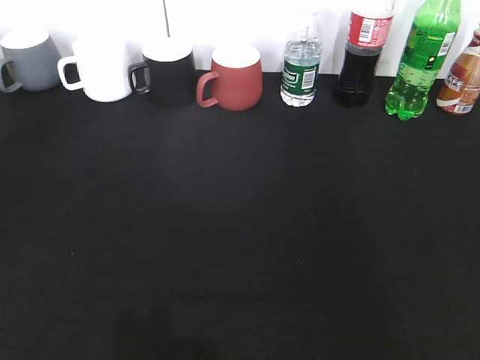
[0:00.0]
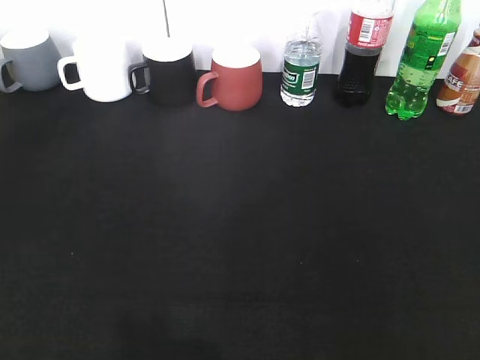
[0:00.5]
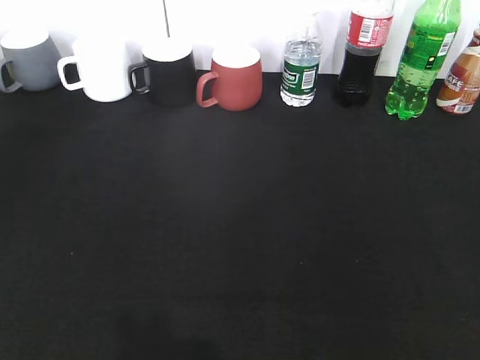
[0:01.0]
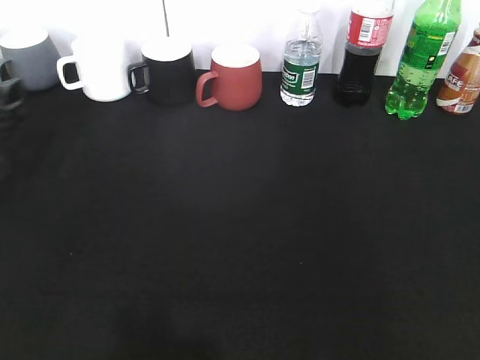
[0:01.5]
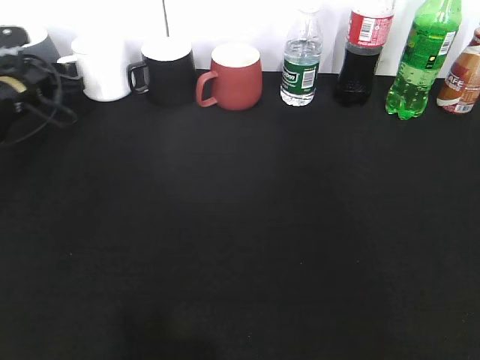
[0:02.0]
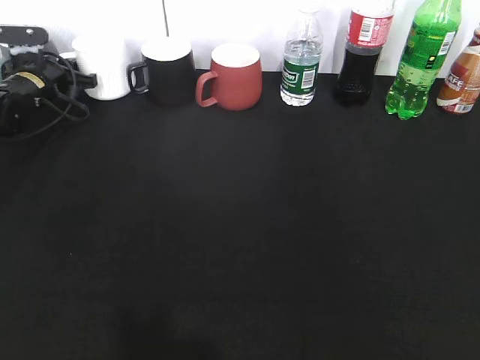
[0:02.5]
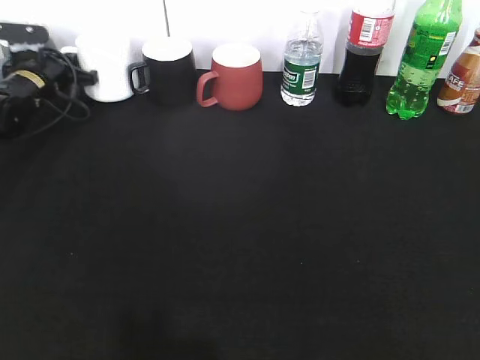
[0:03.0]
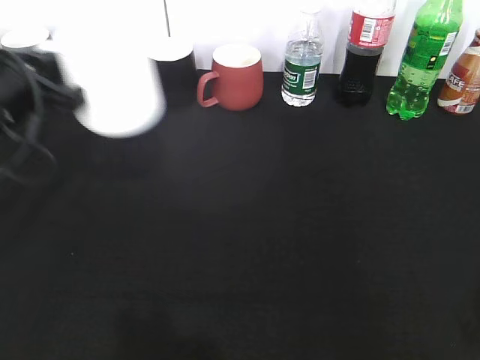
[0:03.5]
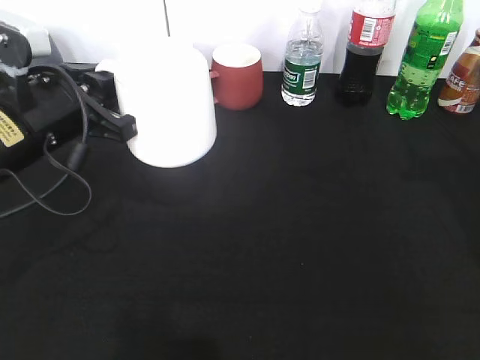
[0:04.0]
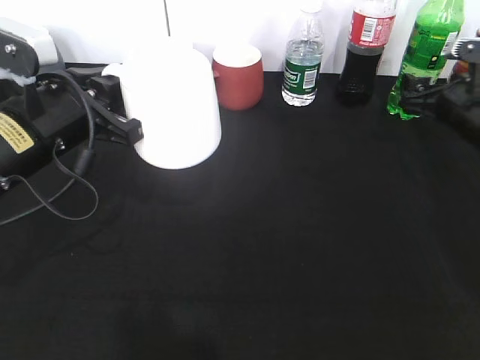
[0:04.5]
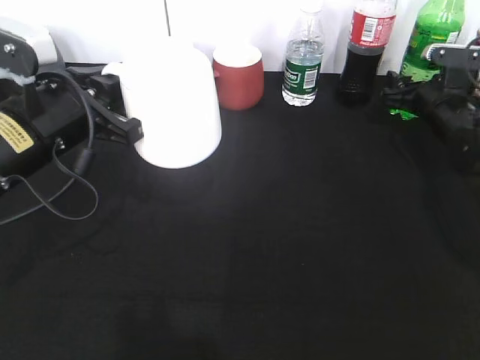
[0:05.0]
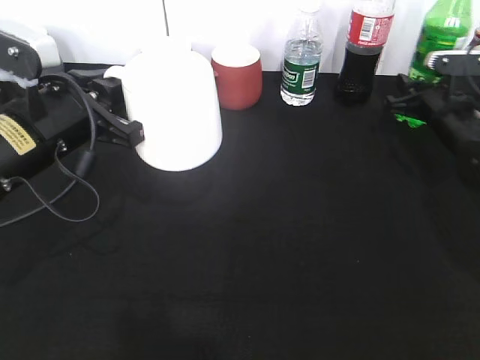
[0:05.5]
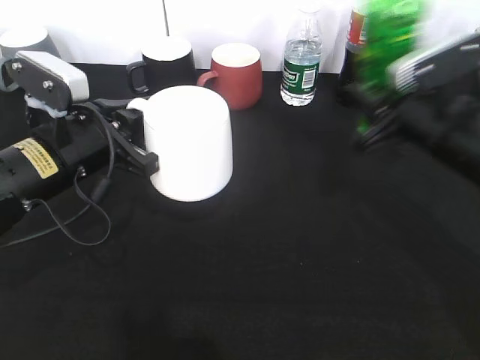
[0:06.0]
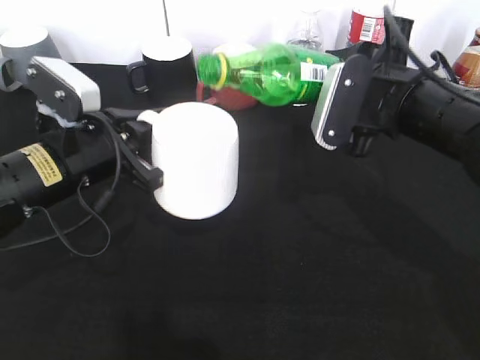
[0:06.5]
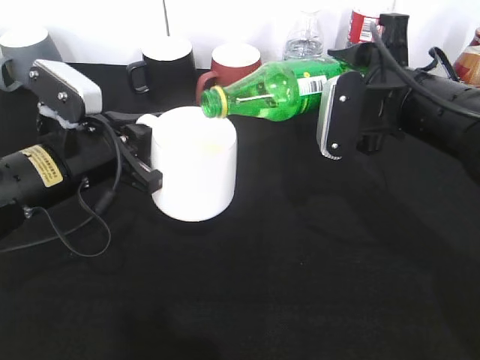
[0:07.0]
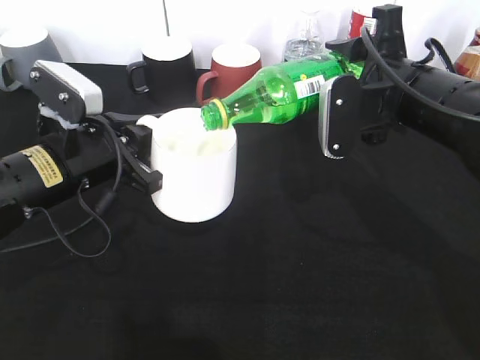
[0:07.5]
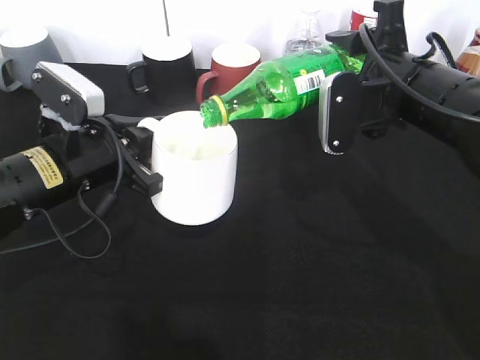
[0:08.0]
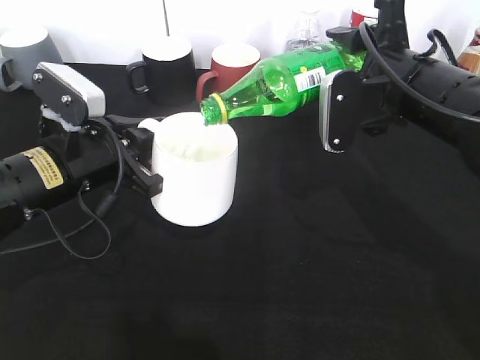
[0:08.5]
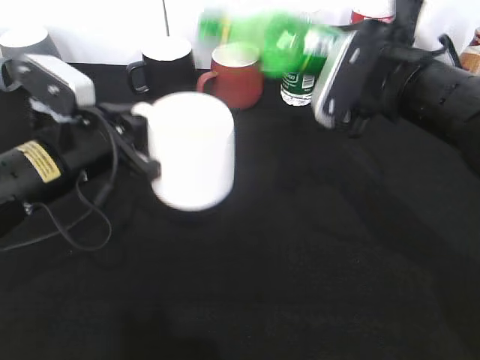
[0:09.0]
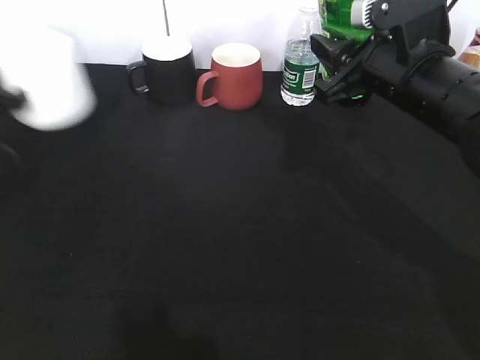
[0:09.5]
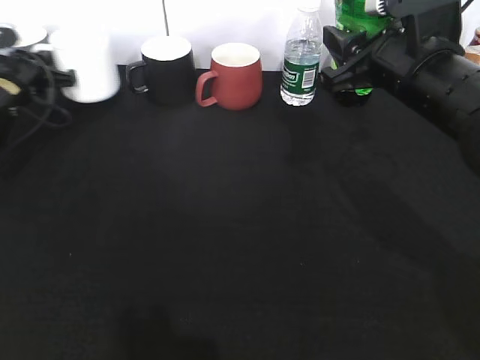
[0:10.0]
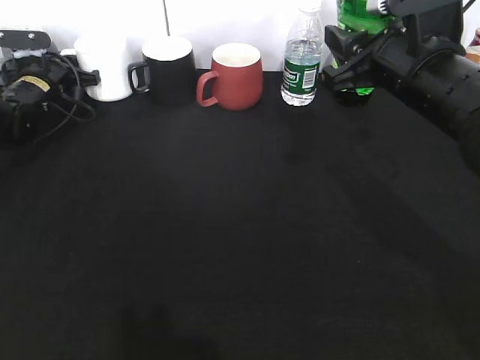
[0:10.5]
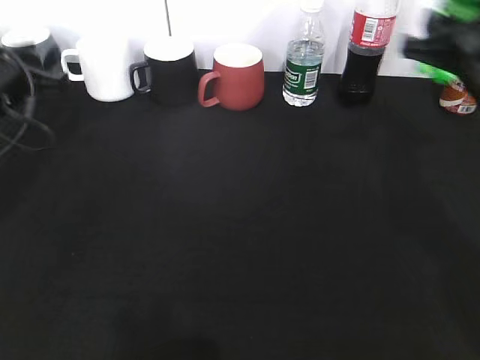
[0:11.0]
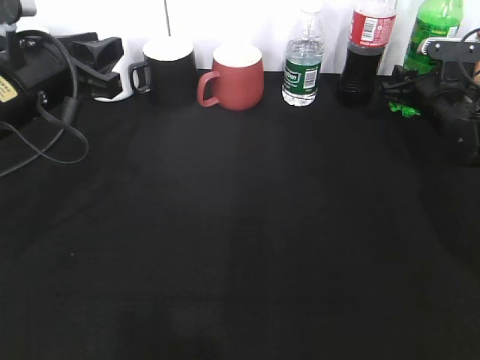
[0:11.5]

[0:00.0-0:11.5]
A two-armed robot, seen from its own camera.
Step, 0:00.0 to 0:02.5: Grasp the white cup with left gripper.
Step, 0:03.0 to 0:03.5: Lift the white cup with left gripper.
Step, 0:04.0 to 0:05.0: Grasp the bottle with sprite with right gripper.
Step, 0:05.5 to 0:08.5: Pour the sprite from bottle to cup with right gripper.
0:00.0 to 0:02.0: The left gripper moves forward, approximately 50 cm, and opens.
0:02.0 to 0:04.0: The right gripper moves forward, about 30 cm; the left gripper goes approximately 25 cm backward, to the right and upward, and closes.
0:04.0 to 0:06.0: The right gripper goes roughly 10 cm to the left, goes forward and returns, approximately 15 cm each way, and closes up.
0:06.0 to 0:07.5: The right gripper shifts by about 5 cm.
0:07.5 to 0:09.5: The left gripper heads to the left, covering some 15 cm.
0:09.5 to 0:11.5: The left gripper is displaced to the right by roughly 10 cm, travels forward and back again, about 20 cm each way, and opens. The right gripper moves forward, downward and to the right, roughly 25 cm.

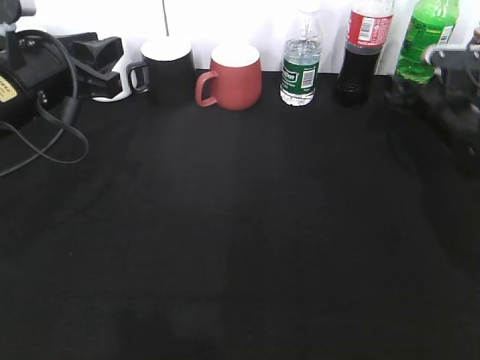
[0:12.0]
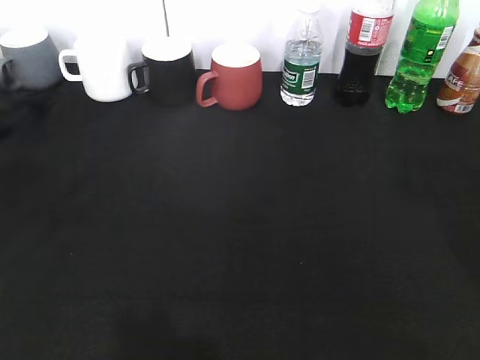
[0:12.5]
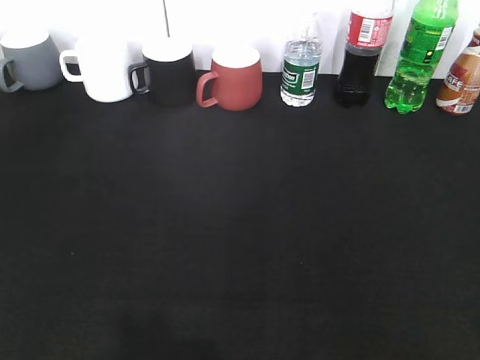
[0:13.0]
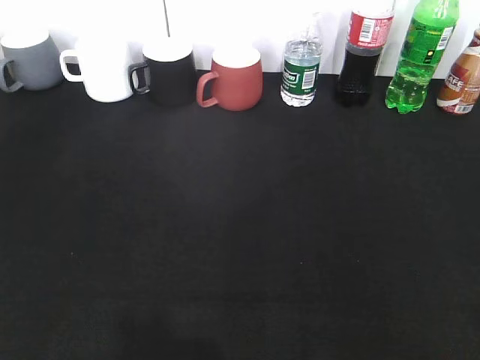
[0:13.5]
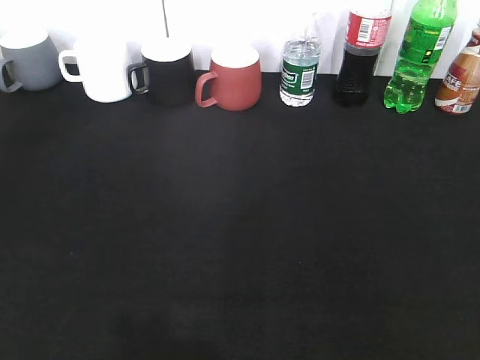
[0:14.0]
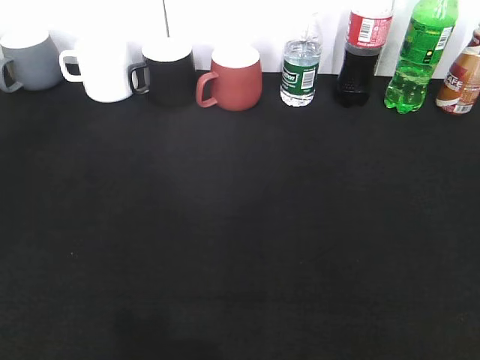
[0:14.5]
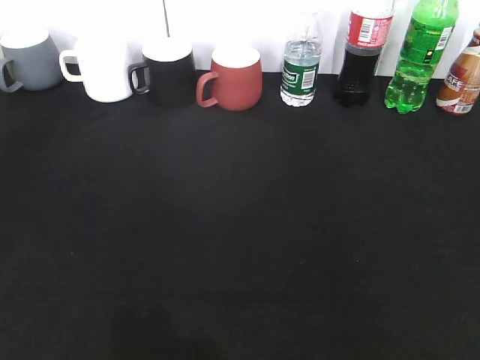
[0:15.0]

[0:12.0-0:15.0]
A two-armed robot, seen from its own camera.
0:12.0 to 0:13.5: The left gripper heads backward and to the left, covering about 30 cm, and opens up; the right gripper moves backward and upward, some 40 cm.

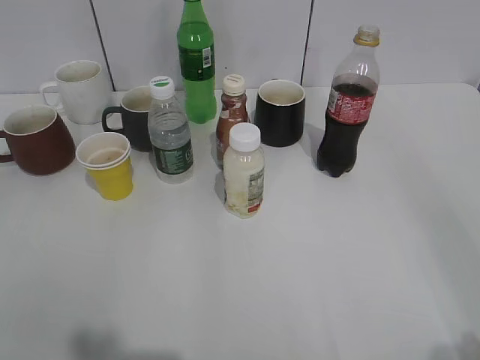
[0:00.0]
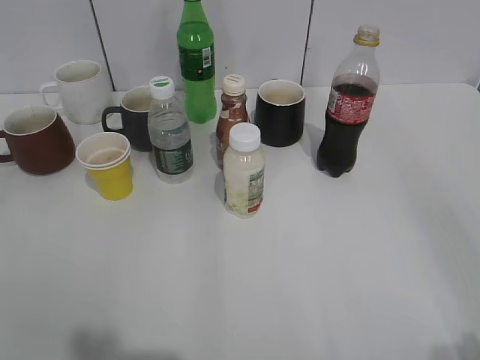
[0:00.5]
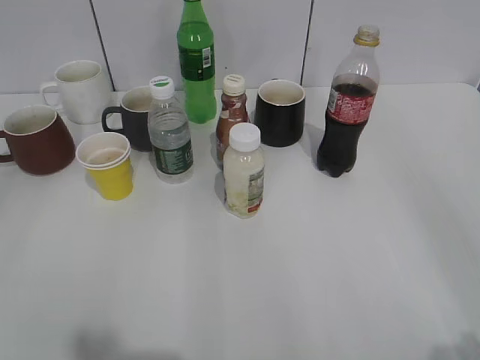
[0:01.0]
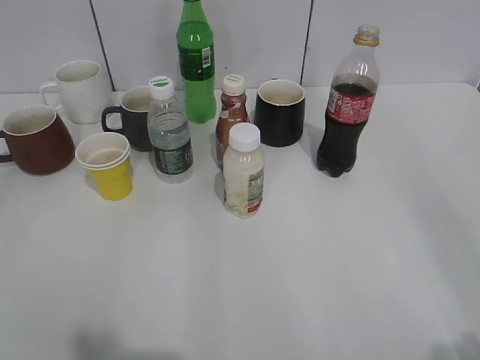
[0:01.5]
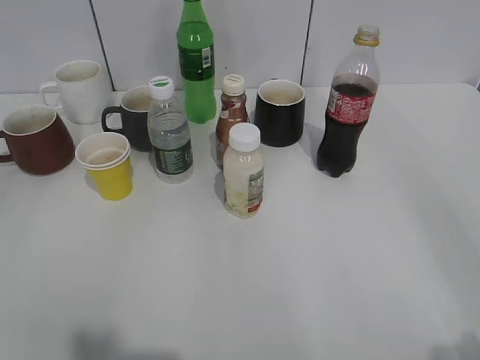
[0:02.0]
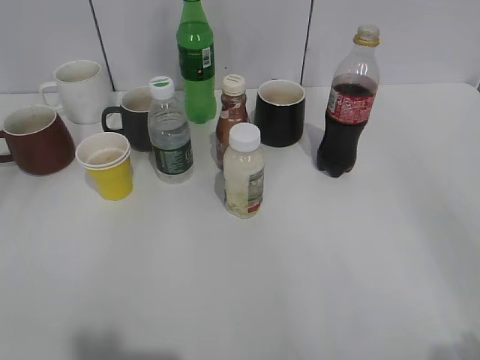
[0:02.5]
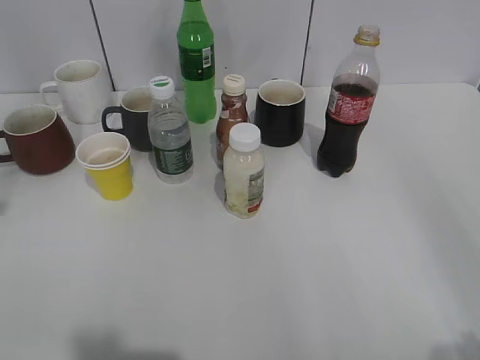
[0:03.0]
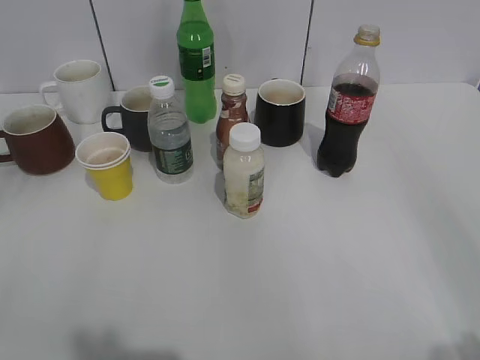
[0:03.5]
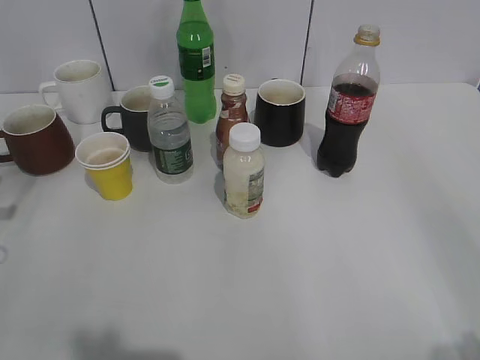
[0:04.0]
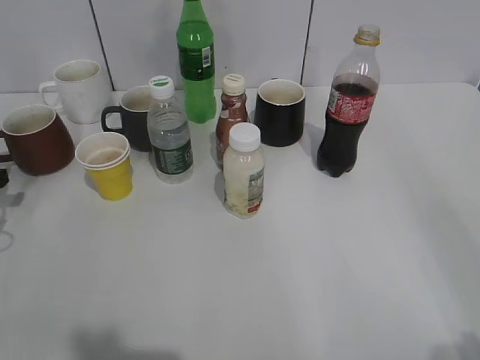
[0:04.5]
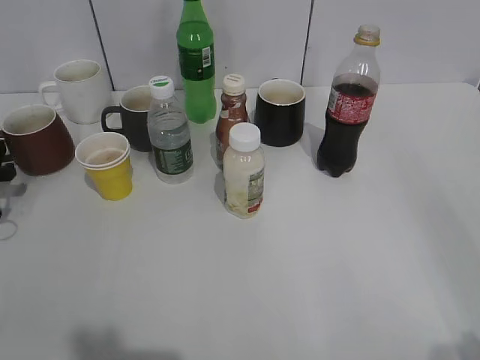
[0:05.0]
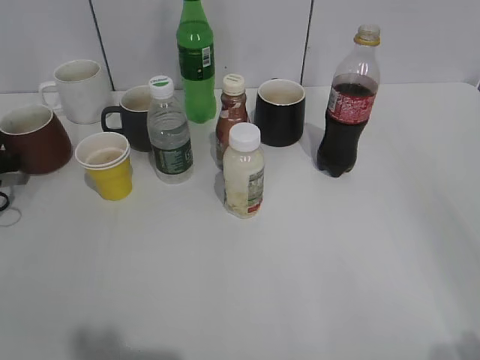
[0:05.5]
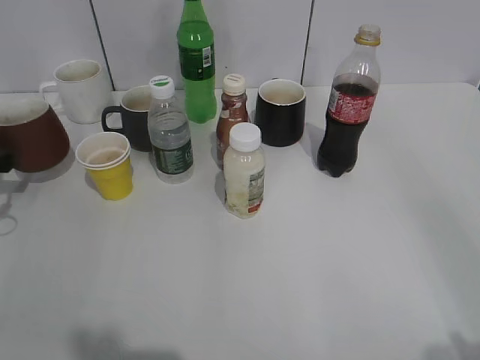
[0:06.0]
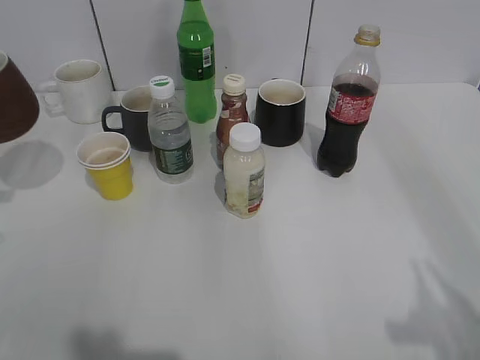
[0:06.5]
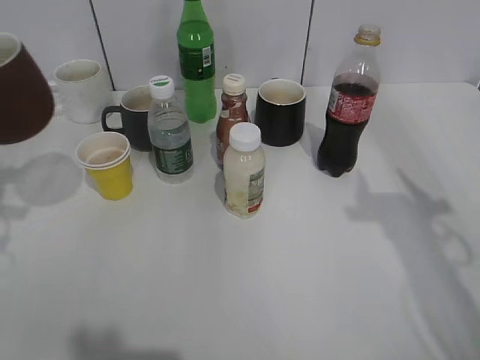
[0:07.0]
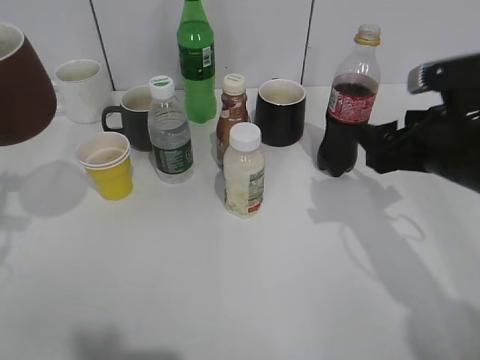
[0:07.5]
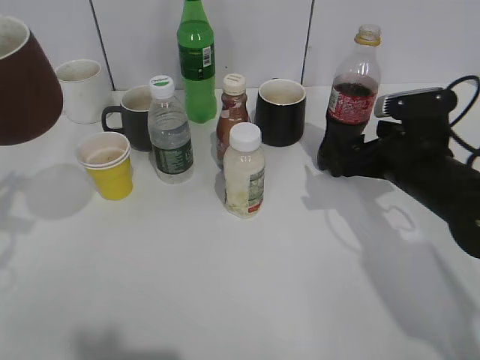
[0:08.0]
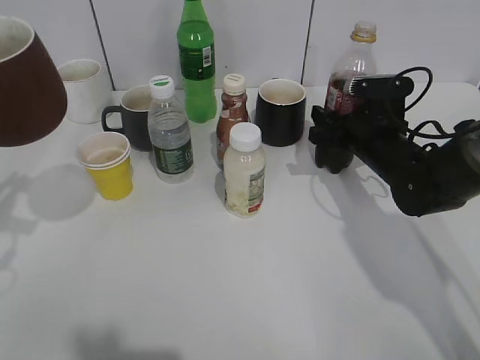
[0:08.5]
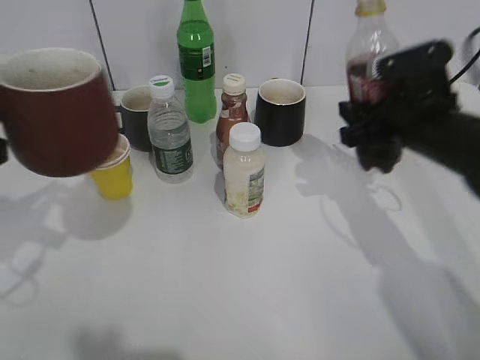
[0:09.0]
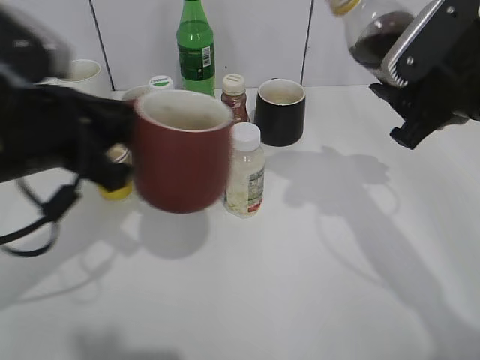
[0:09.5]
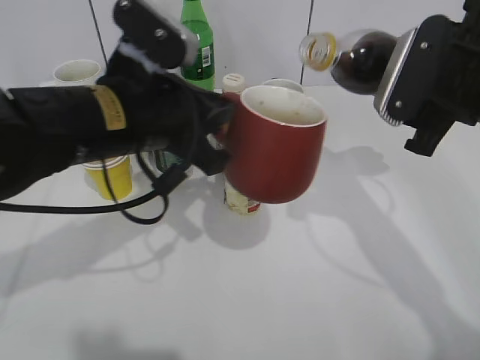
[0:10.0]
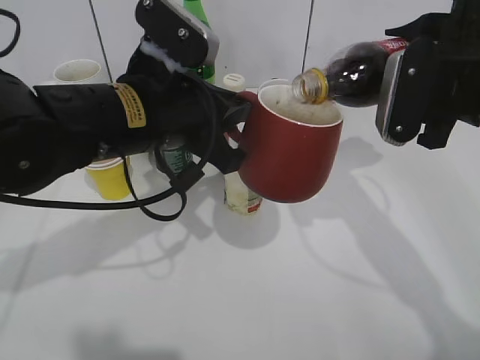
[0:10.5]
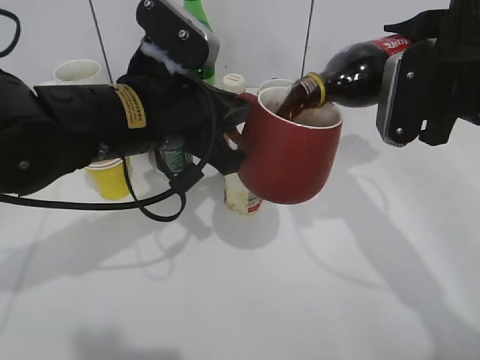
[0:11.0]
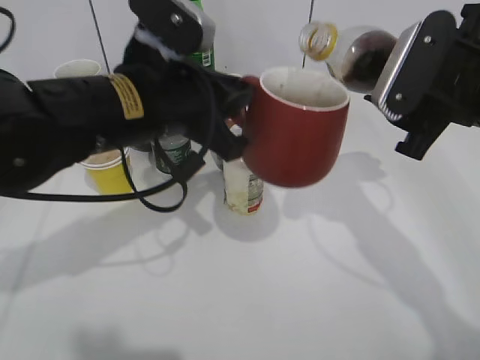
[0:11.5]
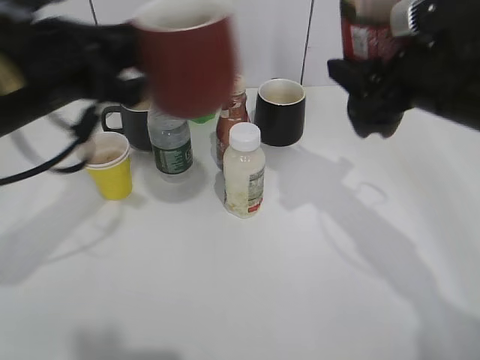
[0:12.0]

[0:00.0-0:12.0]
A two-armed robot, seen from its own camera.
Step, 0:06.0 to 0:08.5: Grasp the bottle with cola with right gripper.
Step, 0:09.0 to 0:11.5: Pour the cola from bottle to cup with right gripper.
0:04.0 to 0:06.0: The left gripper heads forward, covering about 5 cm, and closes.
0:06.0 to 0:08.0: The right gripper heads forward and downward, covering about 35 cm, and opens. Meanwhile the left gripper travels upward, backward and to the right by approximately 25 cm.
0:08.0 to 0:10.0: The left gripper shifts approximately 20 cm to the right. The right gripper goes roughly 15 cm upward.
0:10.0 to 0:12.0: The left gripper is displaced to the left by roughly 5 cm.
